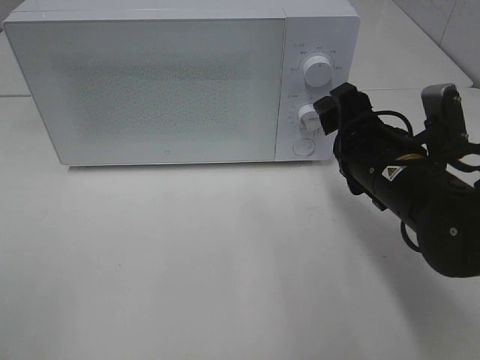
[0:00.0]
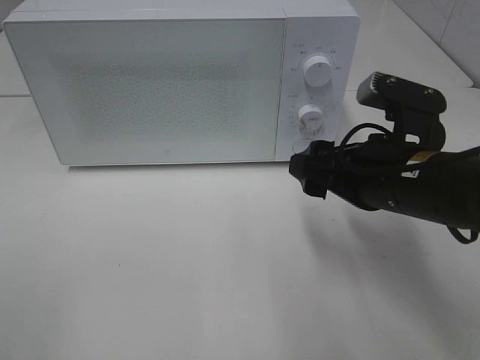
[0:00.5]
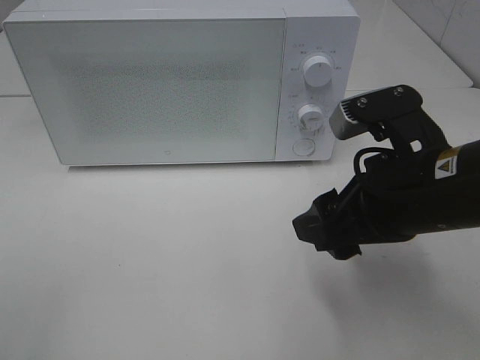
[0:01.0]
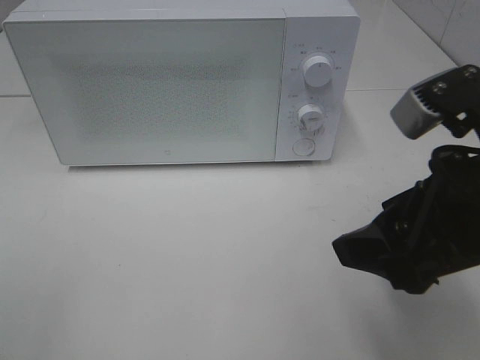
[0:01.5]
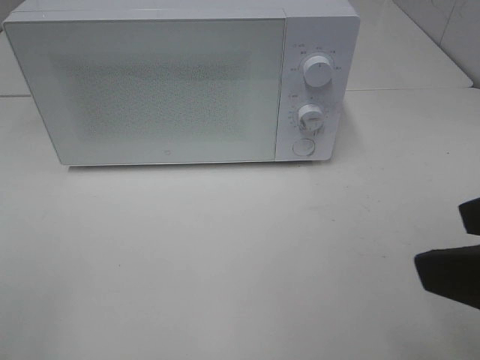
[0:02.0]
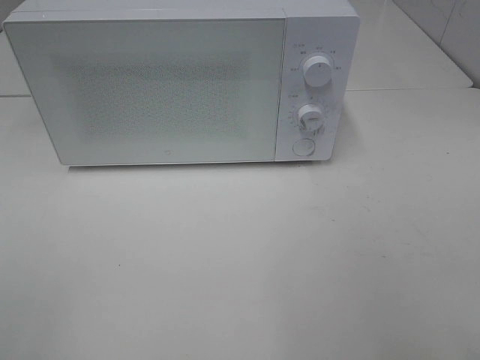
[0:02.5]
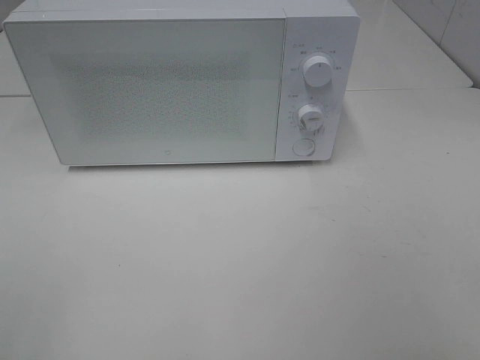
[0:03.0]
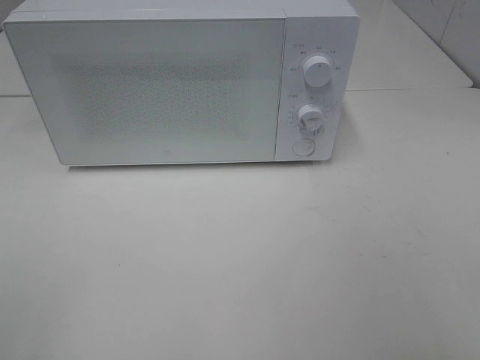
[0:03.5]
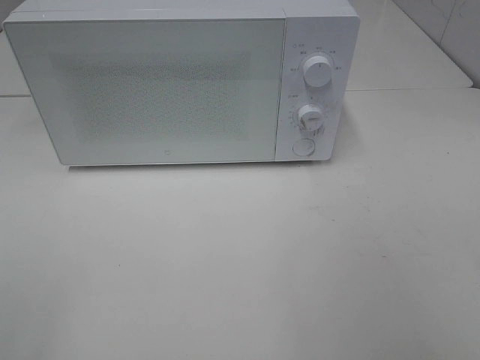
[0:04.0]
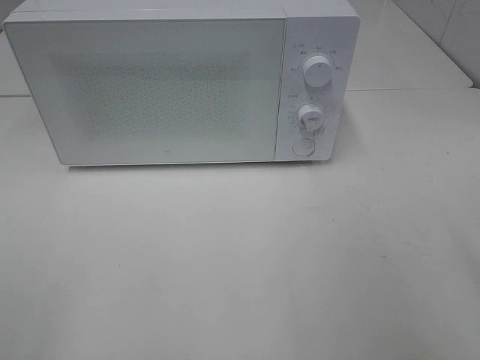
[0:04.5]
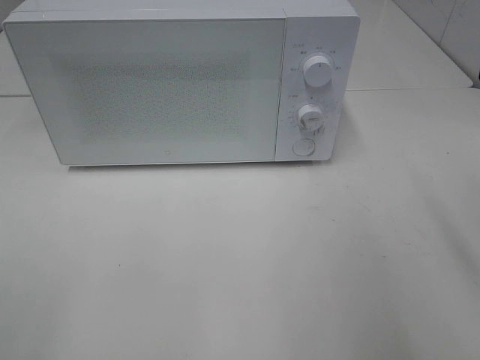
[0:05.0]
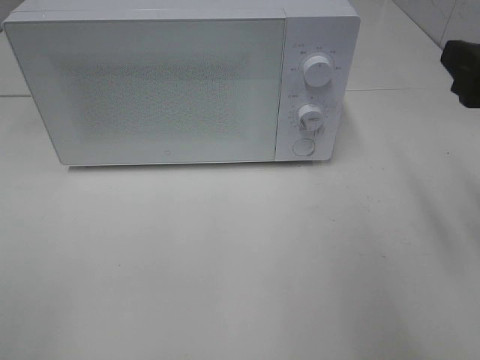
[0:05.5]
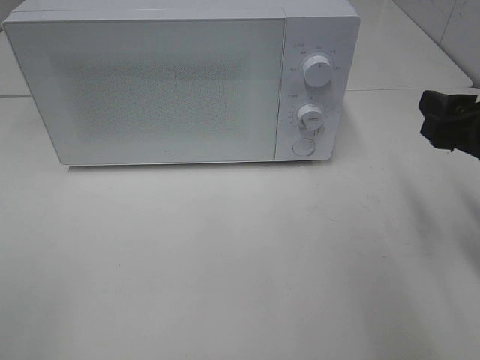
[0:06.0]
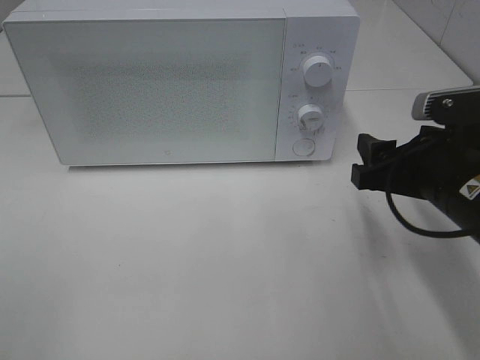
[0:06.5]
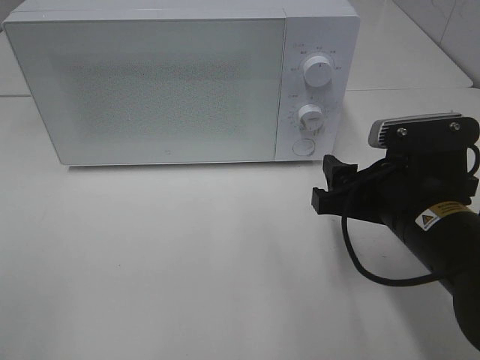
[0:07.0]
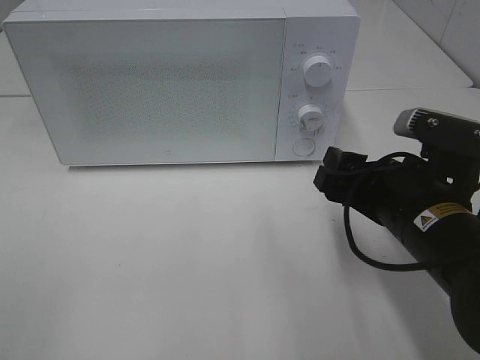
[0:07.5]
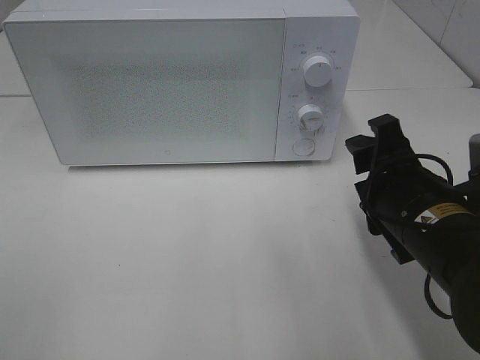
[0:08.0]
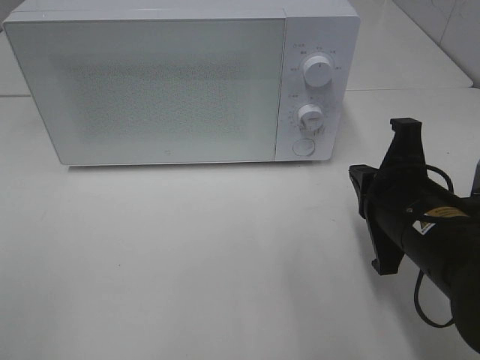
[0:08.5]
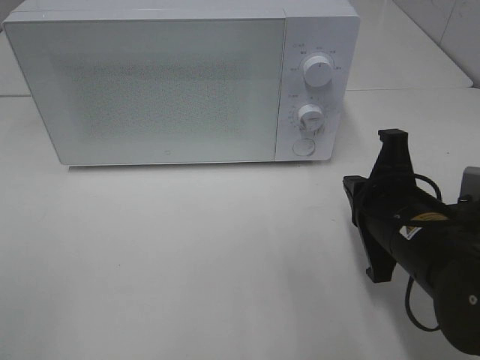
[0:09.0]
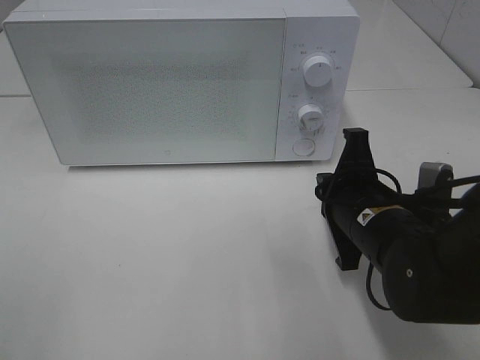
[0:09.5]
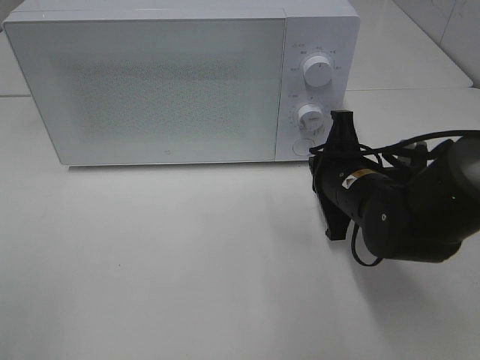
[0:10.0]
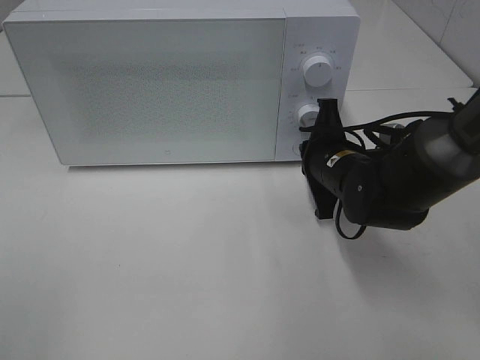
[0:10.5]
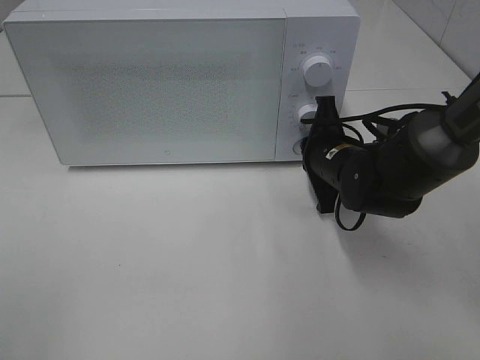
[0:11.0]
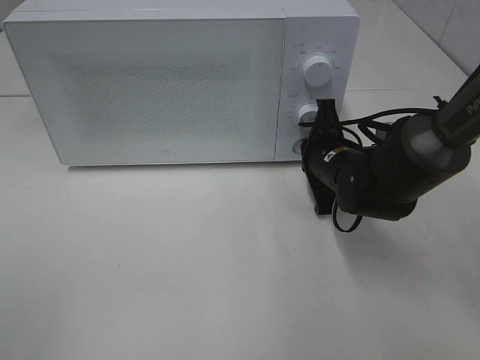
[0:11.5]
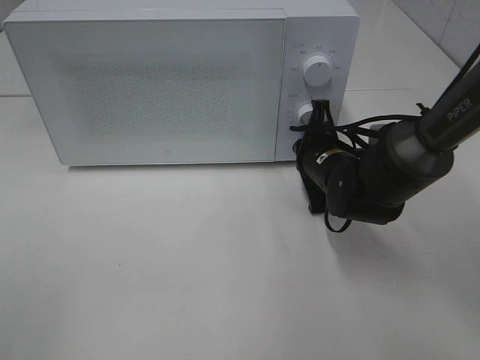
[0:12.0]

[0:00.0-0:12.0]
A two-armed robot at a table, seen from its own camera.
Task of the whole recording: Heat Sandwich.
0:00.0 to 0:02.0: The right gripper goes some 20 cm backward and upward.
0:02.0 to 0:04.0: The right gripper heads to the right and backward, covering about 10 cm.
0:04.0 to 0:06.0: The right gripper is displaced forward and downward by some 20 cm.
0:06.0 to 0:08.0: The right gripper travels to the left and downward by some 10 cm.
0:08.0 to 0:10.0: The right gripper travels forward by about 10 cm, and closes.
0:10.0 to 0:12.0: The right gripper travels forward by roughly 5 cm.

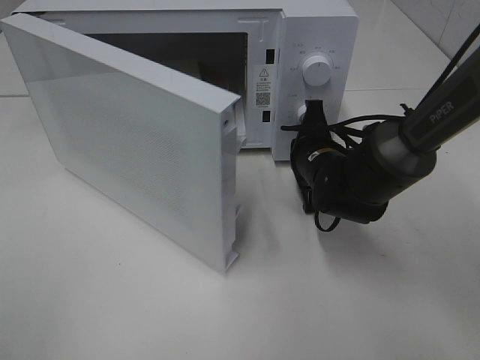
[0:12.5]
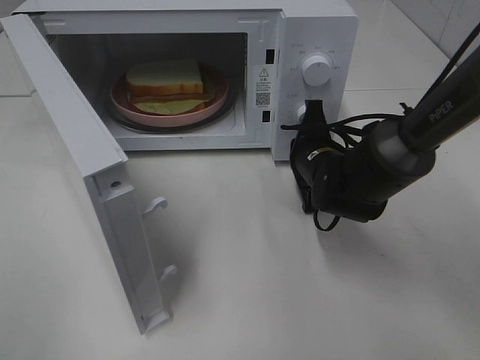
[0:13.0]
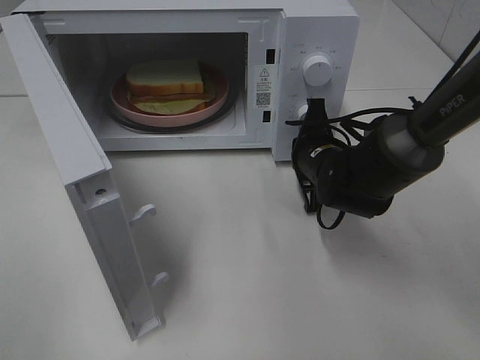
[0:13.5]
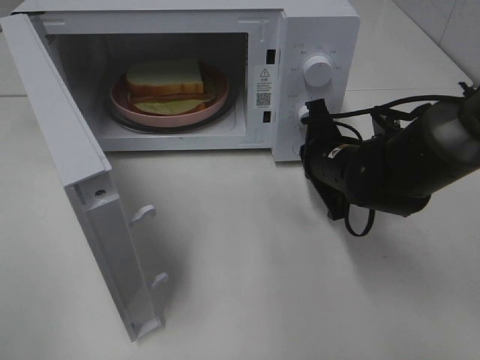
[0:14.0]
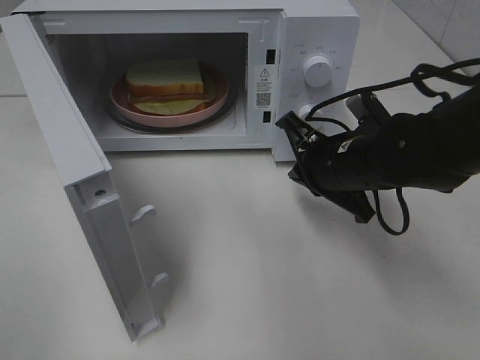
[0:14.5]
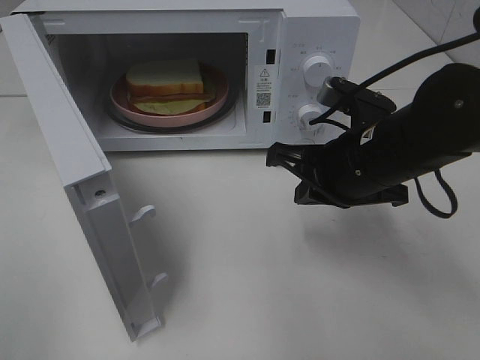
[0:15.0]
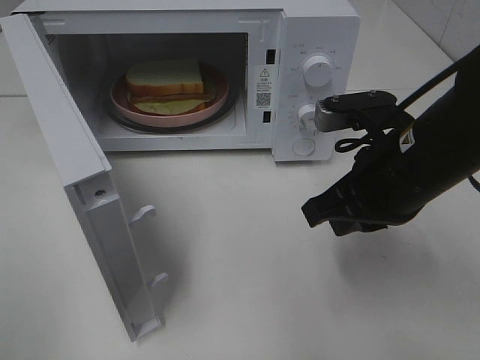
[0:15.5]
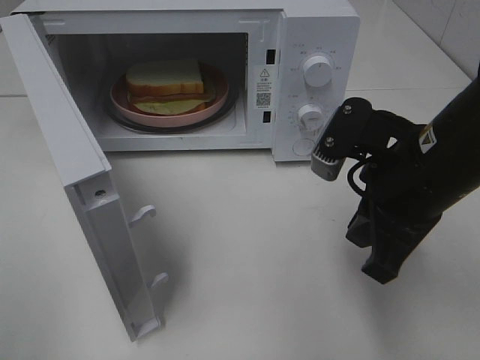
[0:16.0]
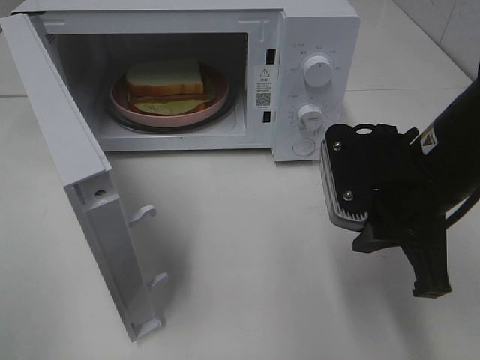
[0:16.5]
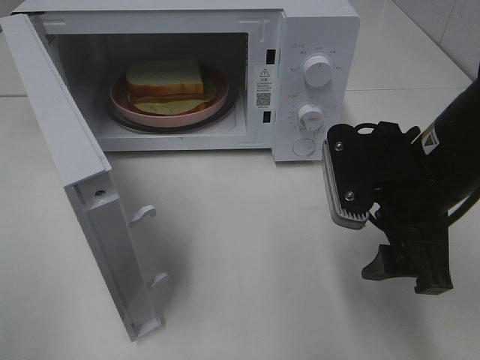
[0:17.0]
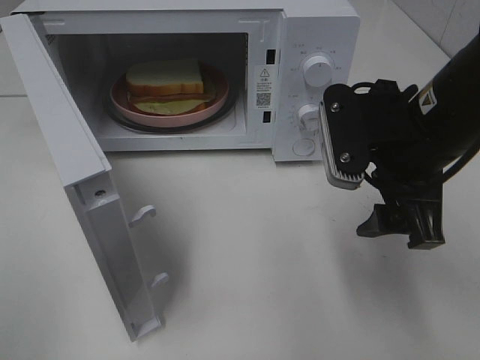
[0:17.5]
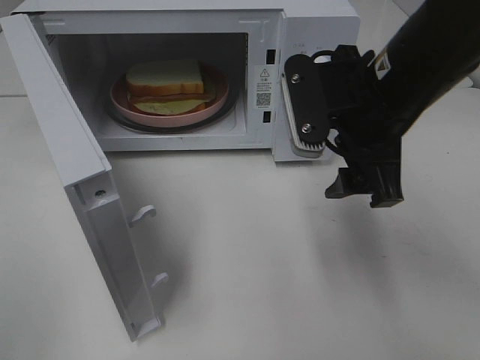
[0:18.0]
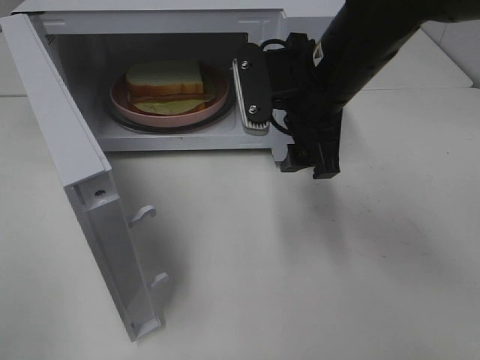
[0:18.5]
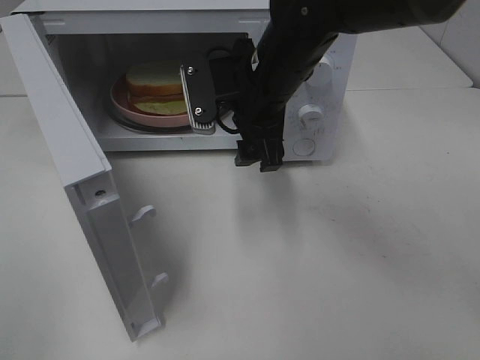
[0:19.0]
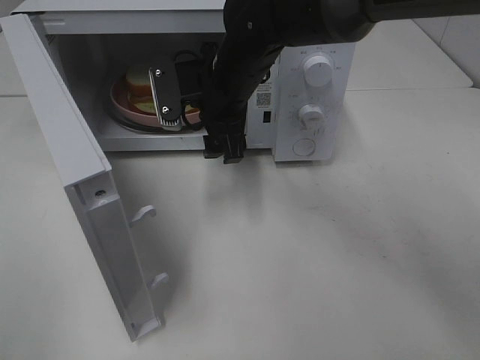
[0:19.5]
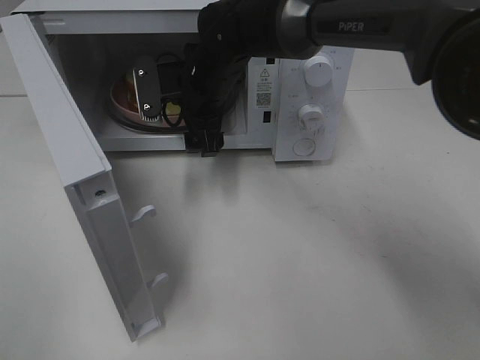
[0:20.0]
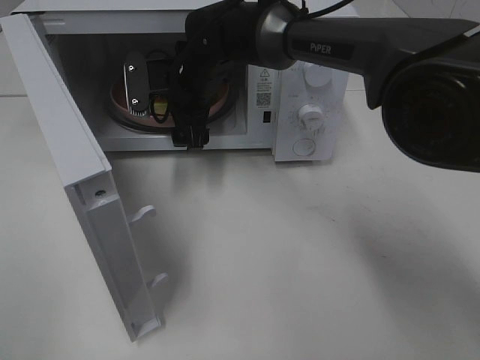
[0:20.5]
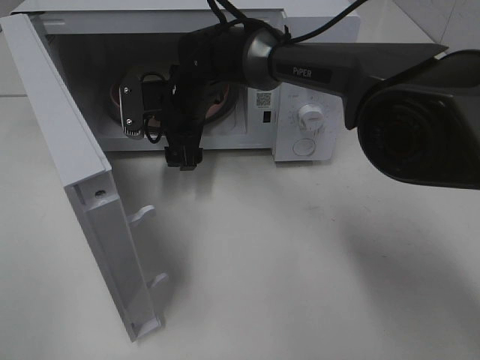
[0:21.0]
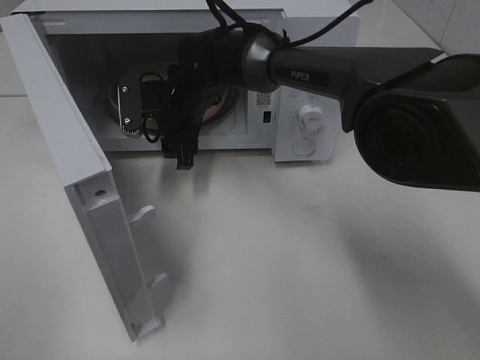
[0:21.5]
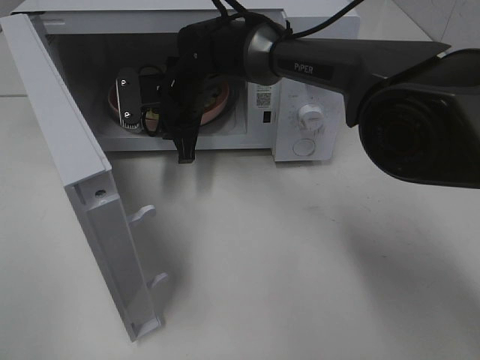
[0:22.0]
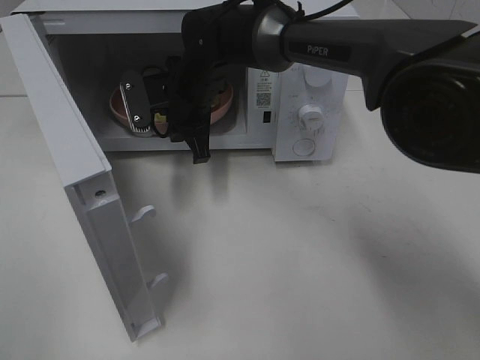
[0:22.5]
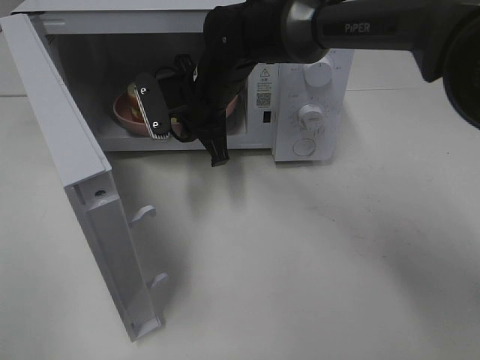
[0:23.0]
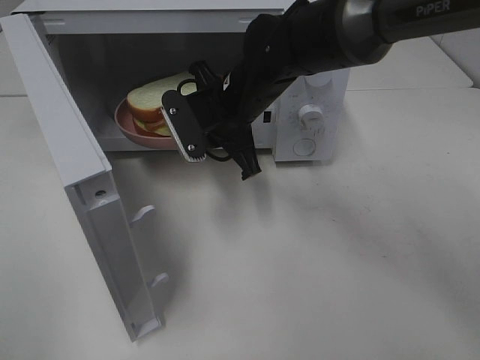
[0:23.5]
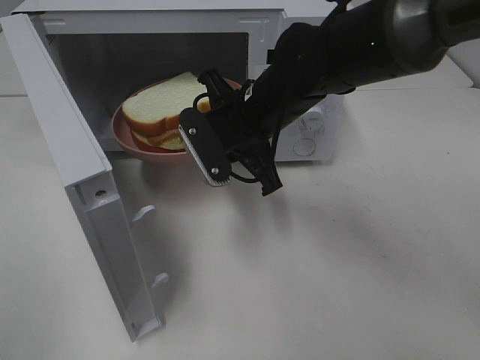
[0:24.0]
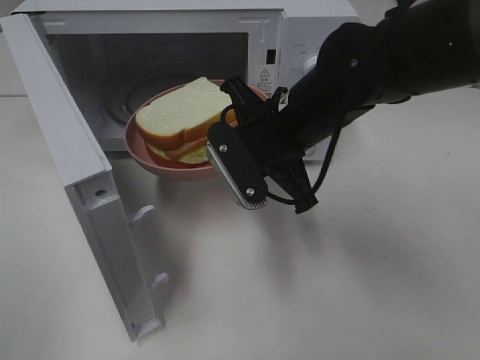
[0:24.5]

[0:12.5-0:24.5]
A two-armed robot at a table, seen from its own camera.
Task of the whole recording: Heat Sandwich.
Step, 0:13.0 to 0:21.5: Right hand: grab the plate with the sandwich.
0:12.5 to 0:14.5: The right gripper travels backward and upward by approximately 10 cm.
0:14.5 to 0:16.5: The right gripper travels backward and upward by about 10 cm.
0:16.5 to 0:18.5: The right gripper goes some 10 cm forward and to the left, and opens up.
0:18.5 to 0:20.5: The right gripper shifts roughly 20 cm to the left, forward and downward.
0:20.5 to 0:22.5: The right gripper closes its fingers.
0:22.5 to 0:24.5: The right gripper heads backward and to the right, covering some 15 cm.

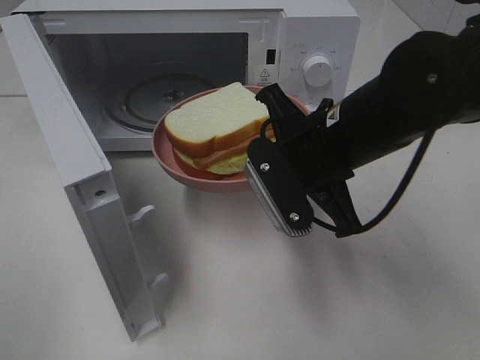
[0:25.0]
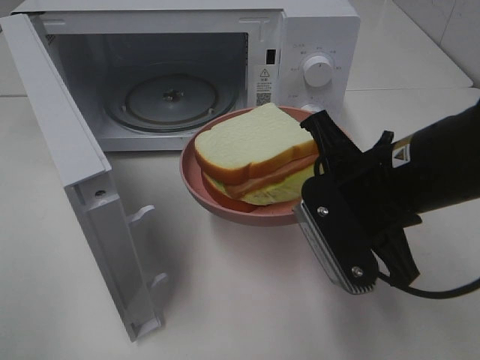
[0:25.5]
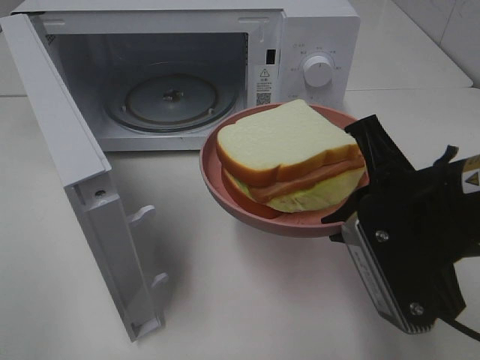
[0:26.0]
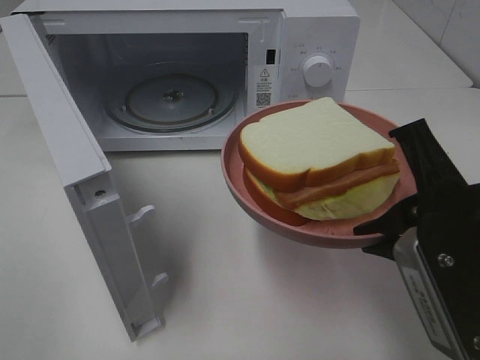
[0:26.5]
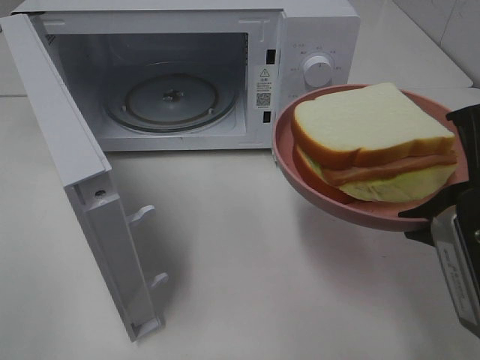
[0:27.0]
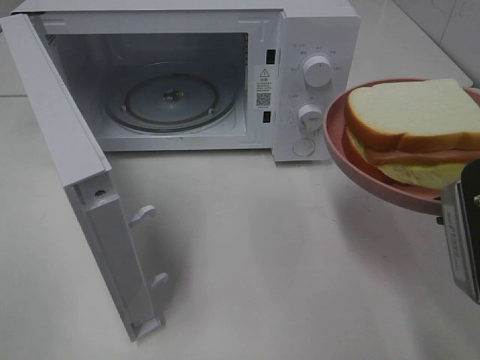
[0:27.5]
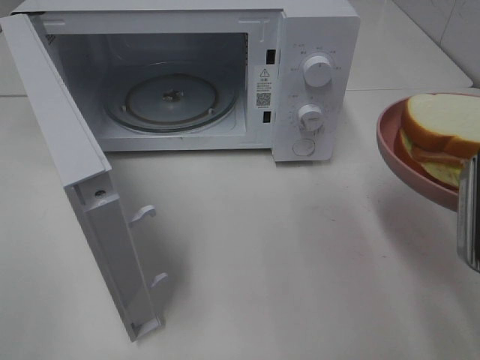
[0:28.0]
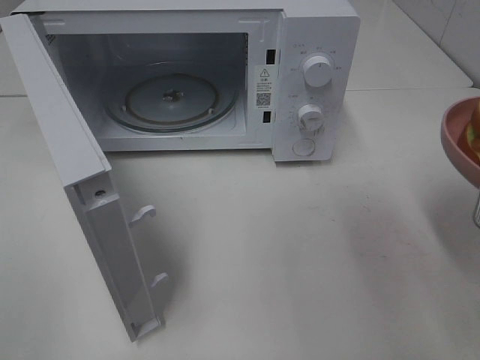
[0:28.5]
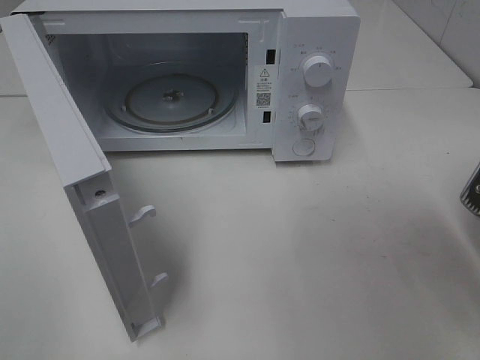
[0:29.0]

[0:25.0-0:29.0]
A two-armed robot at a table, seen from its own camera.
Task of the whole recording: Heat Sandwich.
0:25.0 to 0:27.0: The right gripper shifts about 15 cm backward and to the right.
0:27.0 to 0:29.0: The right gripper changes place by approximately 5 cm.
